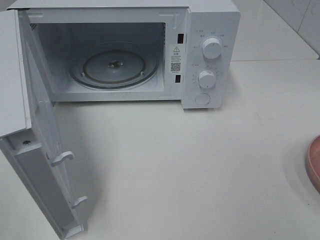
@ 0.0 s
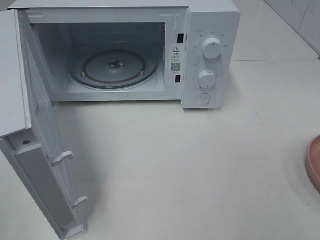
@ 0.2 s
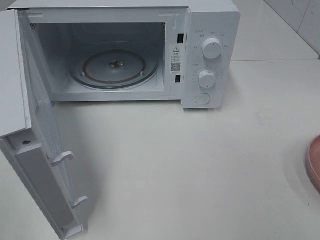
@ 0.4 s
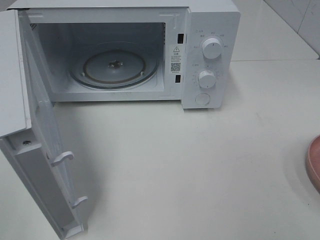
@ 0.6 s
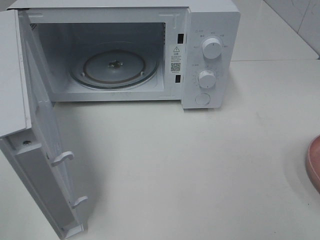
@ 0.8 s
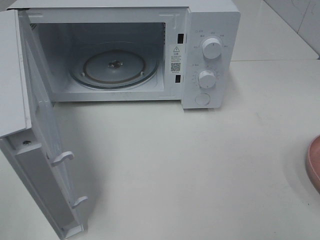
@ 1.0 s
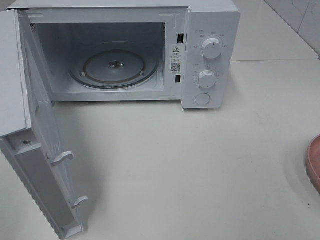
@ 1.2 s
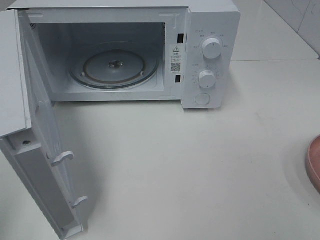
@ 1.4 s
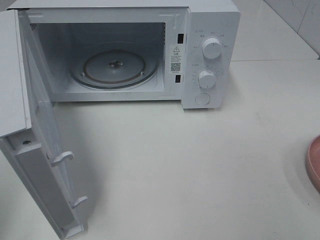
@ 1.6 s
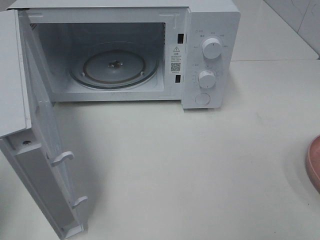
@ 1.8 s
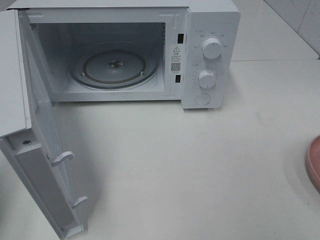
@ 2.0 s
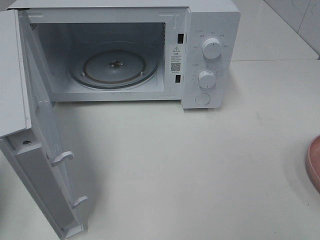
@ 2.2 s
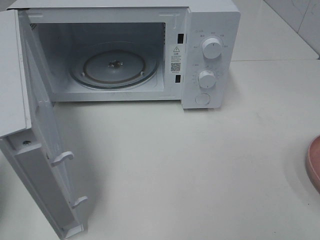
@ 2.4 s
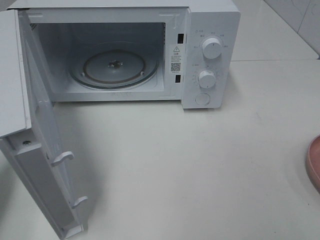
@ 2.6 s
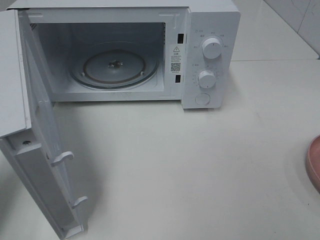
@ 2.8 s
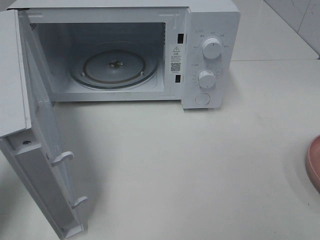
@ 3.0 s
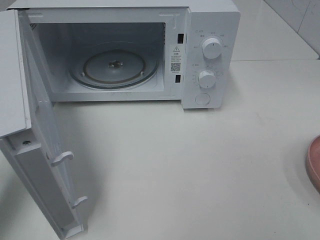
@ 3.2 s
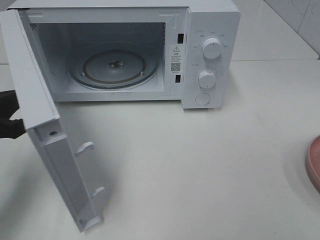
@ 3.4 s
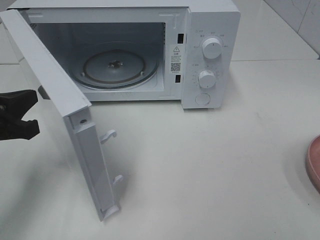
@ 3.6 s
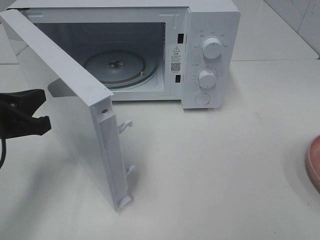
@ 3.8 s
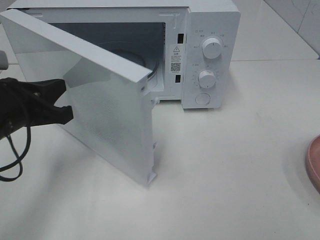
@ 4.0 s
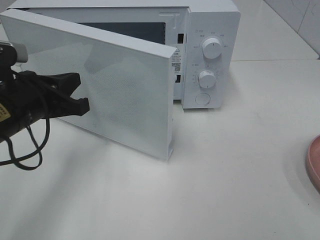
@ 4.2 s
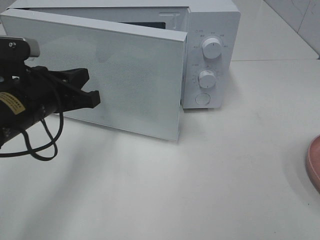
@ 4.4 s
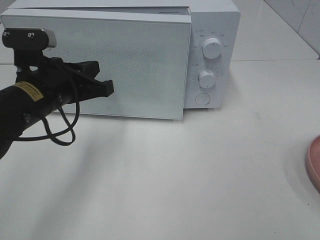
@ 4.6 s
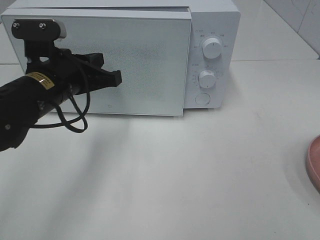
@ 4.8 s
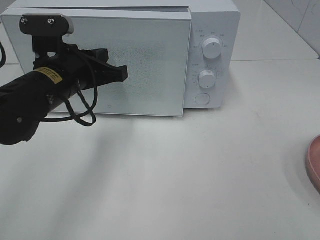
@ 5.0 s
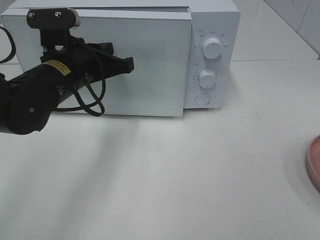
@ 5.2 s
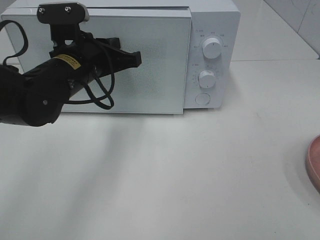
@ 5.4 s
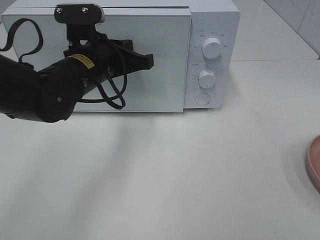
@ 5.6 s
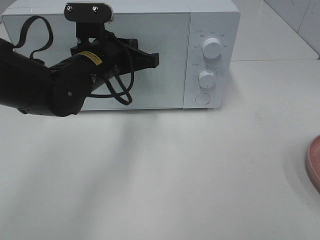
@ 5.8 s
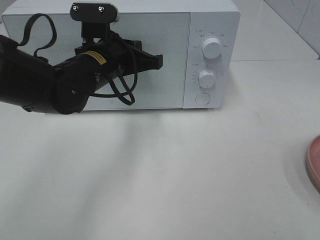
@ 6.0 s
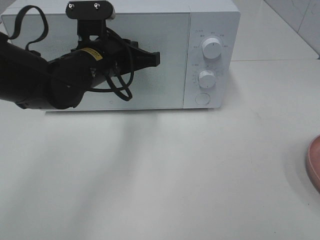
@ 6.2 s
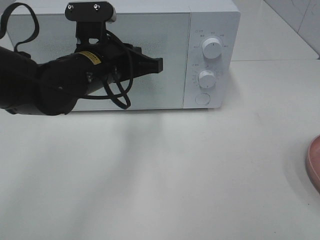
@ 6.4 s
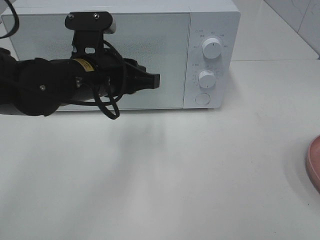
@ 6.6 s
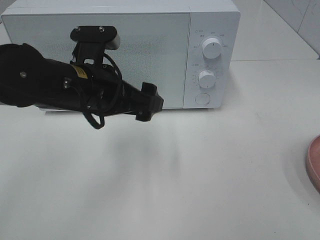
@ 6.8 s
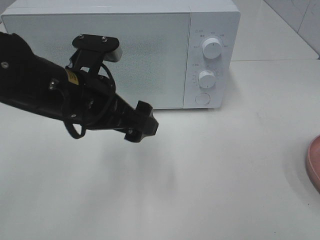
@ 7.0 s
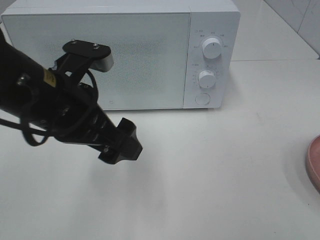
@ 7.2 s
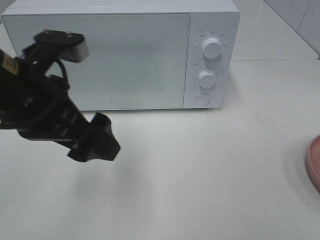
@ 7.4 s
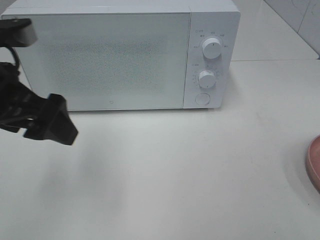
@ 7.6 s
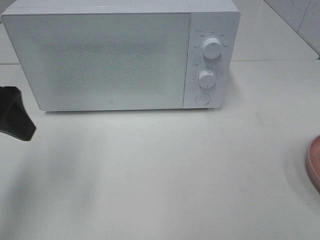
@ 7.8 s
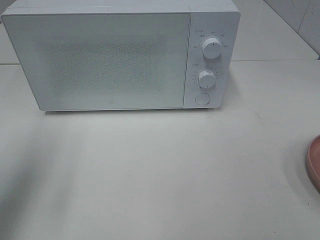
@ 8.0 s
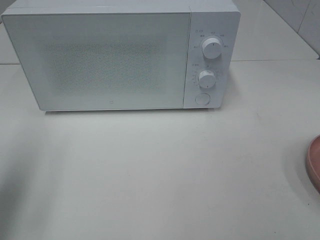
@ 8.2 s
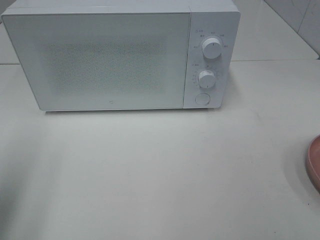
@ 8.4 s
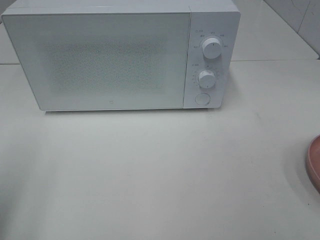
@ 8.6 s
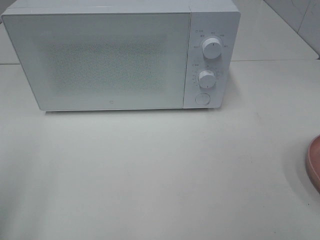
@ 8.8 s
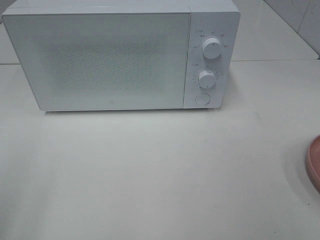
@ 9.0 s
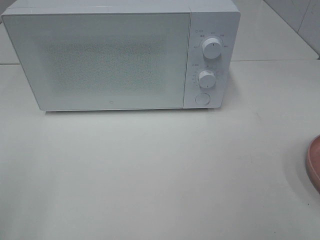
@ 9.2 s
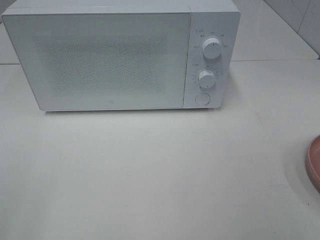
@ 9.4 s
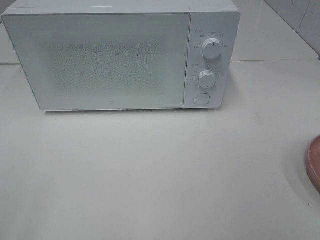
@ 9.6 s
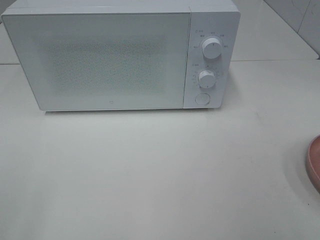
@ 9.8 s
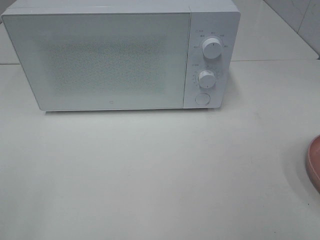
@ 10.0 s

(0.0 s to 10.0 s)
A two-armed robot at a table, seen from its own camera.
Task of the whole recording: Heat the burger.
Step, 0.0 s - 6.4 s: Left hand: close the microwave door.
1.4 s - 2.8 s: The left gripper shifts about 20 cm forward and downward, and closes.
2.8 s - 4.2 s: The left gripper moves to the right and forward, approximately 15 cm.
4.2 s - 5.8 s: The left gripper moves to the right and forward, about 15 cm.
5.8 s - 7.2 s: The left gripper goes approximately 10 cm backward, and opens.
7.2 s - 8.6 s: The left gripper moves to the left and backward, some 20 cm.

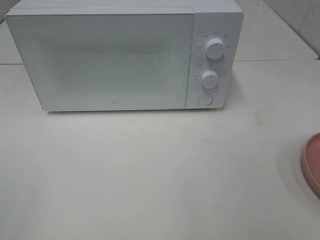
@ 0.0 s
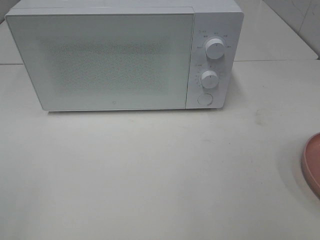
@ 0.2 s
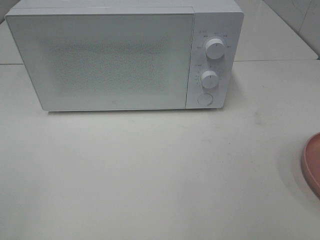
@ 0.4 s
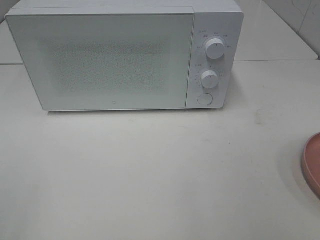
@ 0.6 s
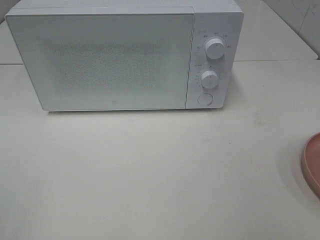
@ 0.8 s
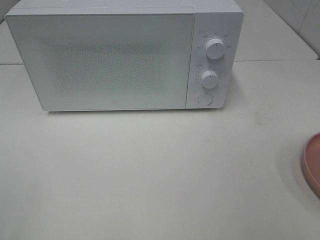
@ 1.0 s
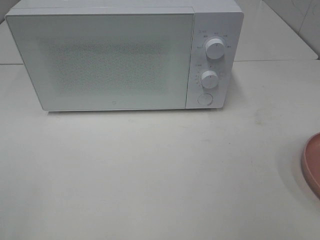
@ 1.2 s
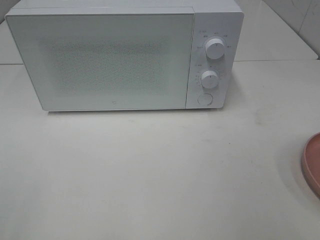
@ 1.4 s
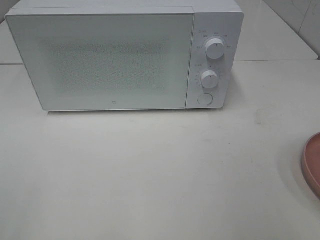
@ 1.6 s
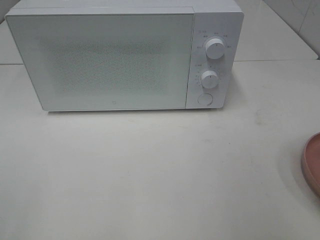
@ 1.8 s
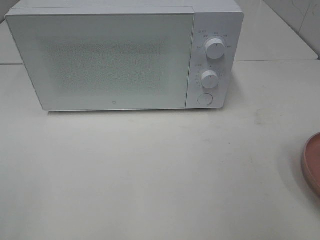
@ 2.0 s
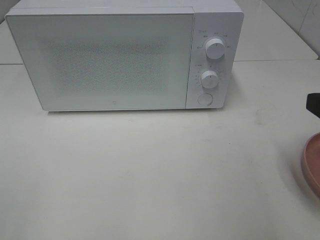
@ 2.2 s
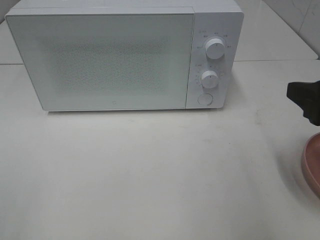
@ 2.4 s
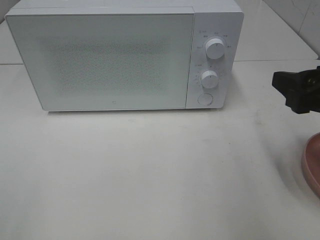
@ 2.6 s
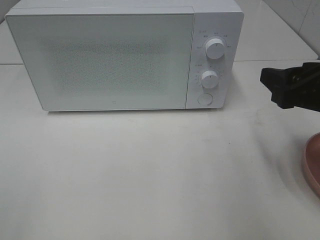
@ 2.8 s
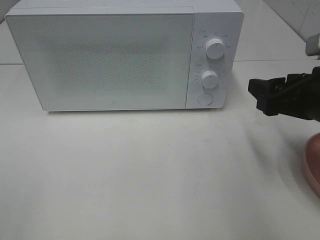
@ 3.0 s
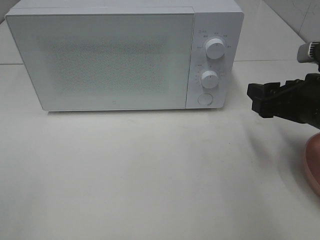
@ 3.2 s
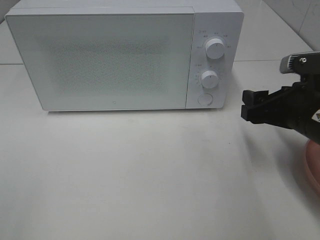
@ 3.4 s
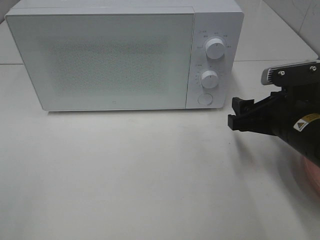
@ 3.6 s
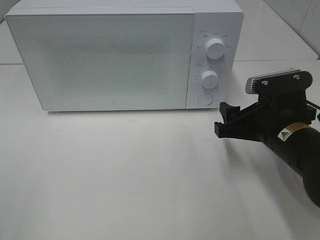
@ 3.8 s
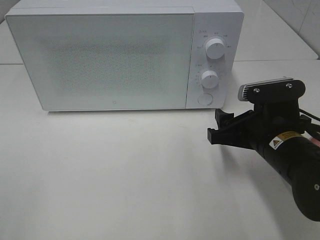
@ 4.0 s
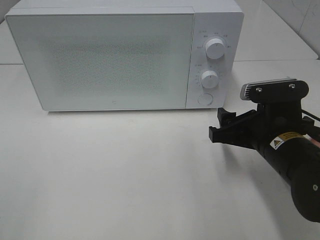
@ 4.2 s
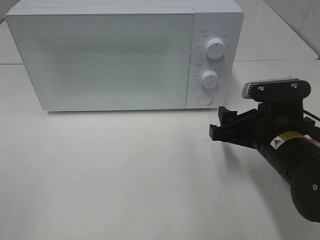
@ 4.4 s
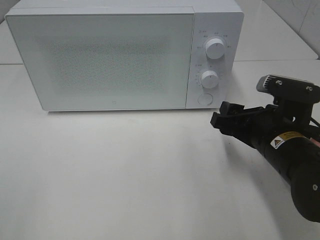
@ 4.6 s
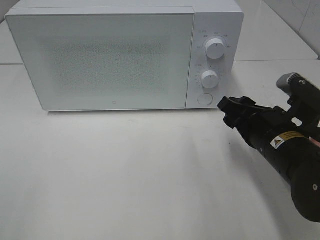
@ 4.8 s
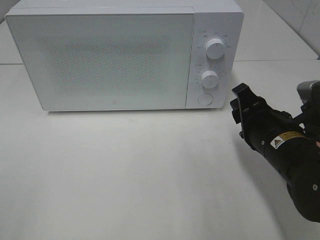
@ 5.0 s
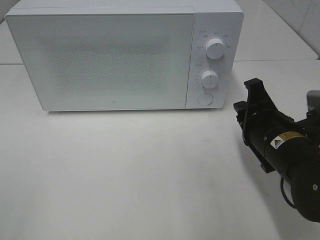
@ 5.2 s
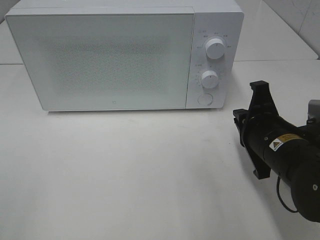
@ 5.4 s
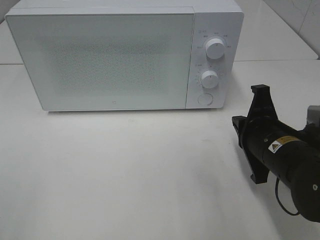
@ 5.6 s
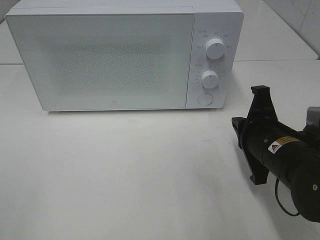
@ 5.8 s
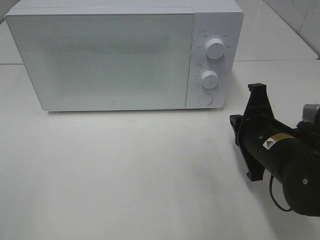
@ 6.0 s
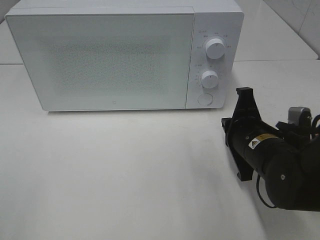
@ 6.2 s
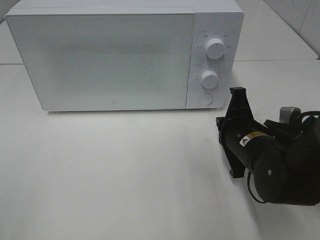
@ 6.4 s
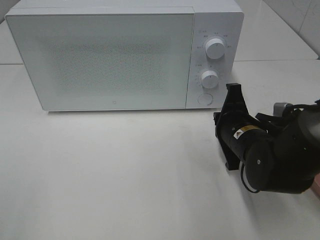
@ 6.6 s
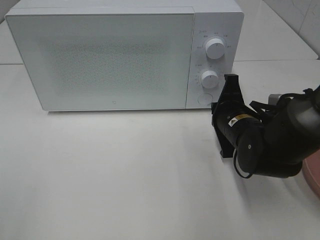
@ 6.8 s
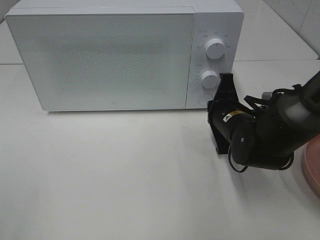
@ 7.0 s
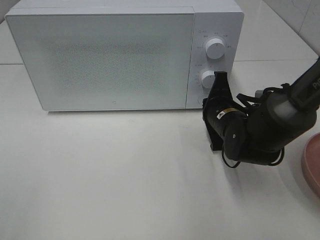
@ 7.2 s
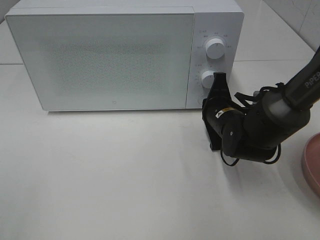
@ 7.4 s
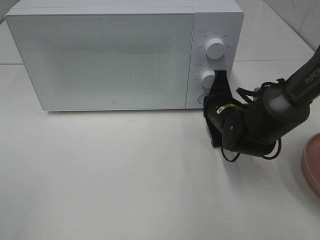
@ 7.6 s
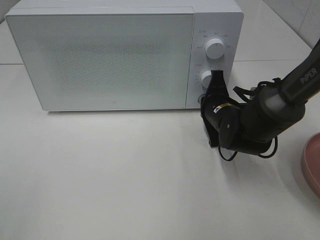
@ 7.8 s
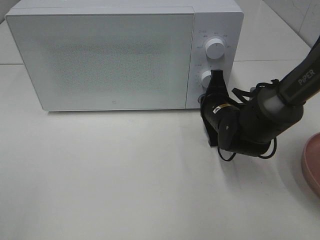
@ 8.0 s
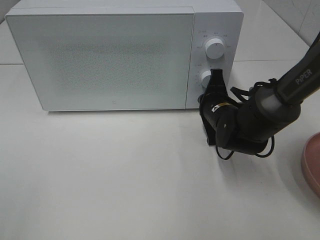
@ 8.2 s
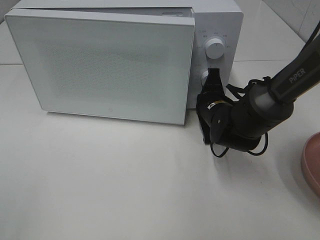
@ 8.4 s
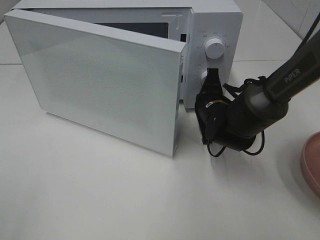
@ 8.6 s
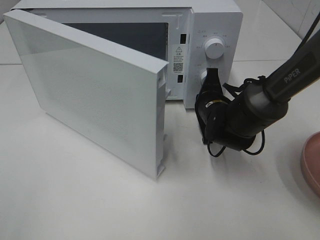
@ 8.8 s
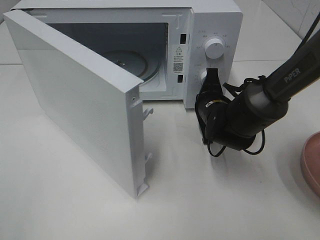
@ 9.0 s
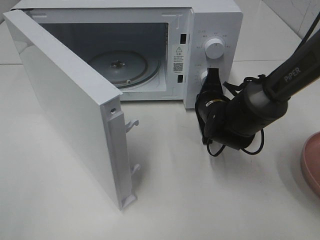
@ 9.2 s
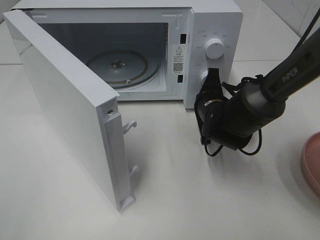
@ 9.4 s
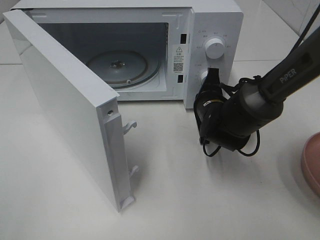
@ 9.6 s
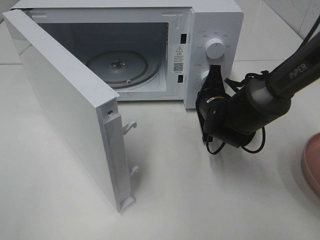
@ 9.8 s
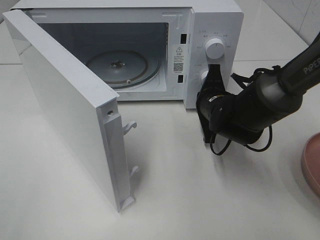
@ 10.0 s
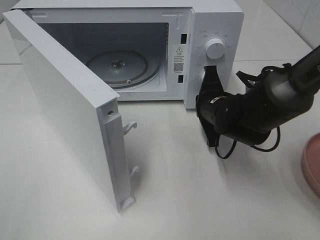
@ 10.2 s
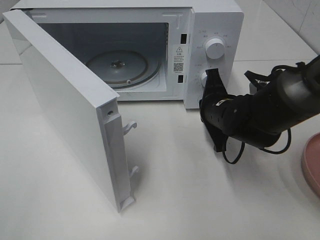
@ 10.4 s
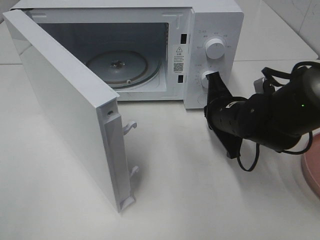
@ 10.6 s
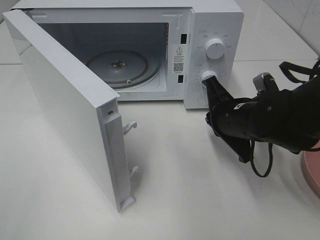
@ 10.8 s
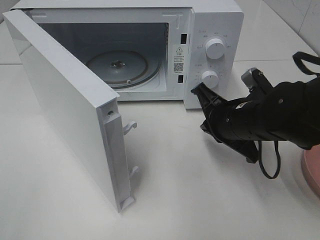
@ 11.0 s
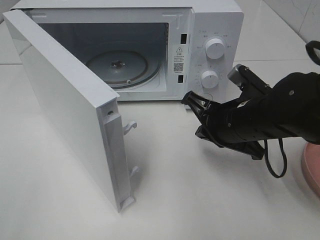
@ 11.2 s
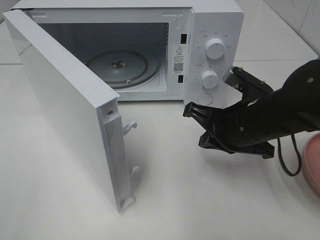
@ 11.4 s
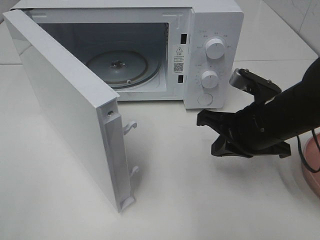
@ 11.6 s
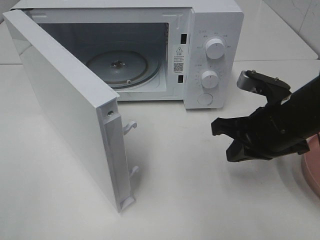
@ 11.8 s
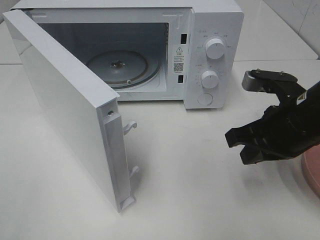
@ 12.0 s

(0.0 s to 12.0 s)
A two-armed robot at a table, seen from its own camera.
Task of the whole recording: Heat the burger.
Step, 0.0 s - 10.2 s: Right hand: press the switch.
1.6 s - 3.0 s: The right gripper is displaced forward and downward by approximately 15 cm.
3.0 s - 4.4 s: The right gripper goes about 10 cm downward and to the left.
4.4 s - 6.0 s: The right gripper closes.
6.0 s - 7.6 s: The right gripper travels forward by approximately 10 cm.
9.0 s - 10.4 s: The grippers move only a little.
10.4 s - 12.0 s: The right gripper travels backward, upward and to the right by roughly 15 cm.
